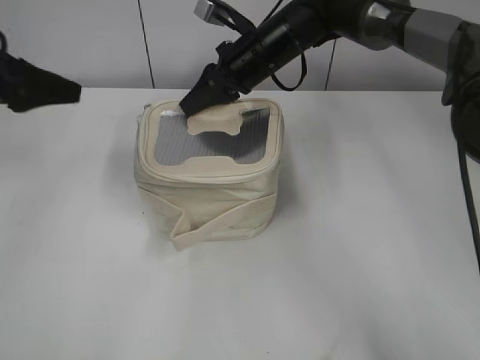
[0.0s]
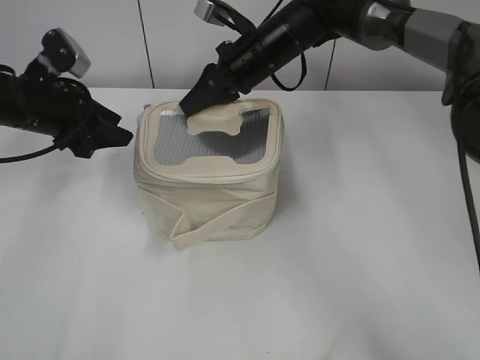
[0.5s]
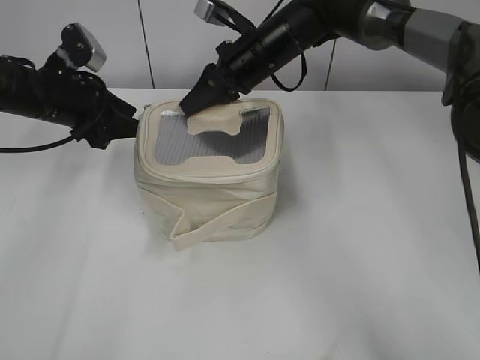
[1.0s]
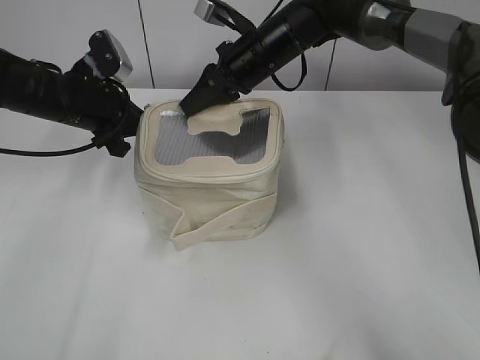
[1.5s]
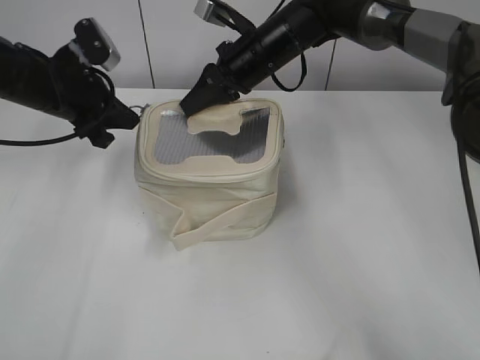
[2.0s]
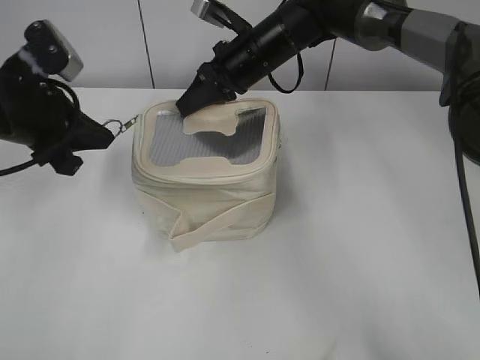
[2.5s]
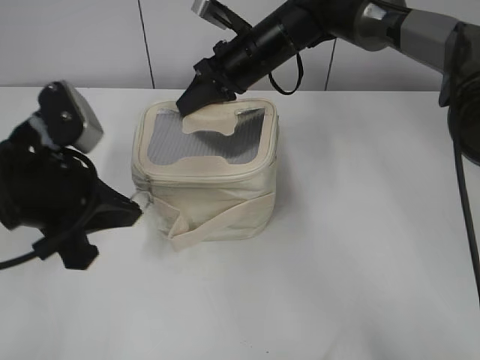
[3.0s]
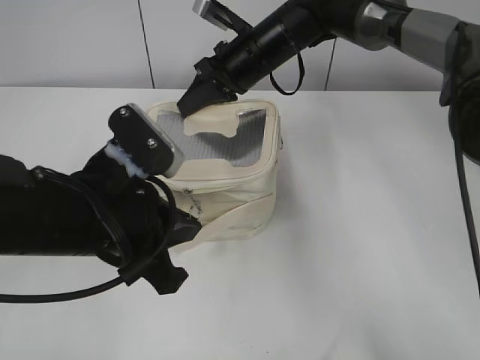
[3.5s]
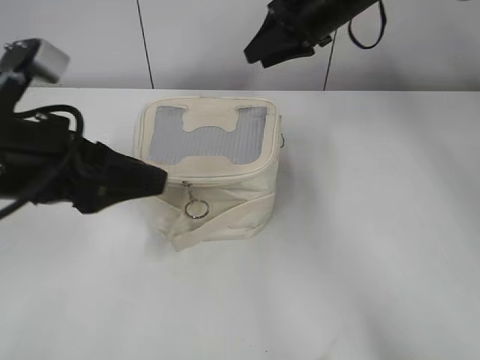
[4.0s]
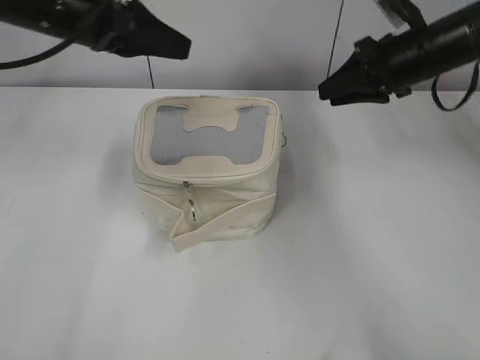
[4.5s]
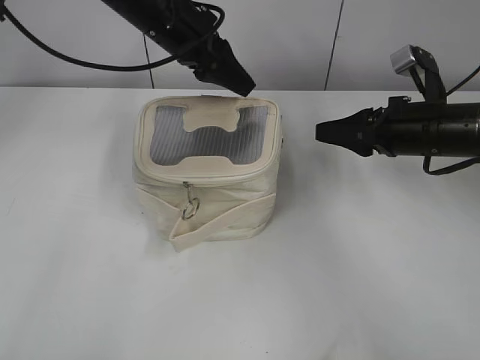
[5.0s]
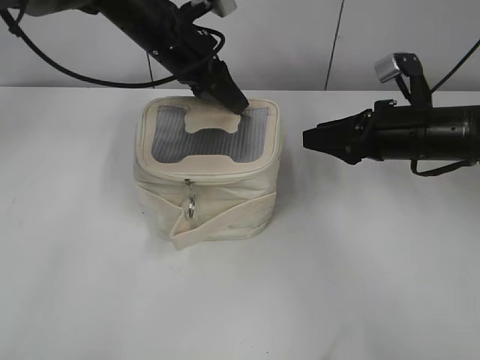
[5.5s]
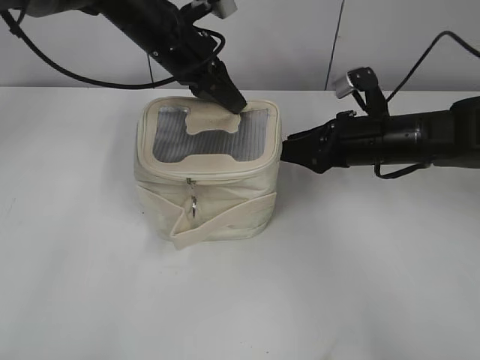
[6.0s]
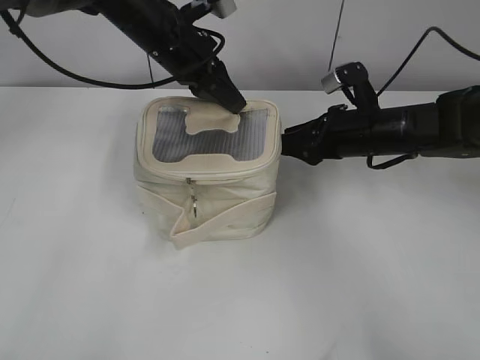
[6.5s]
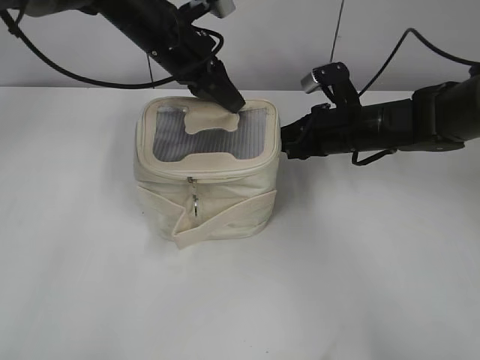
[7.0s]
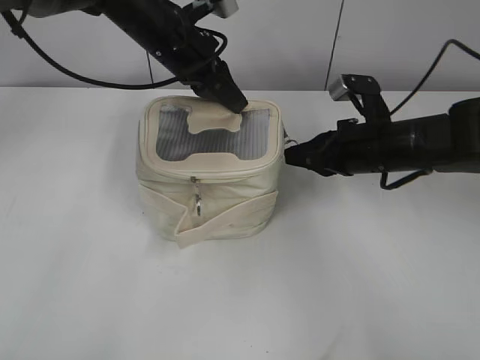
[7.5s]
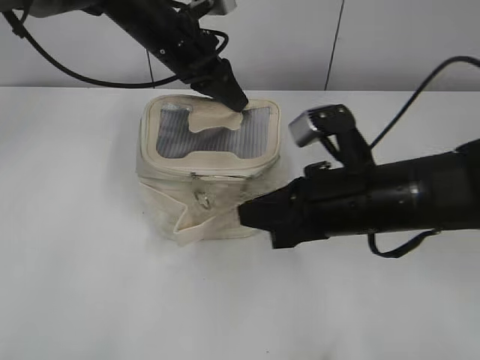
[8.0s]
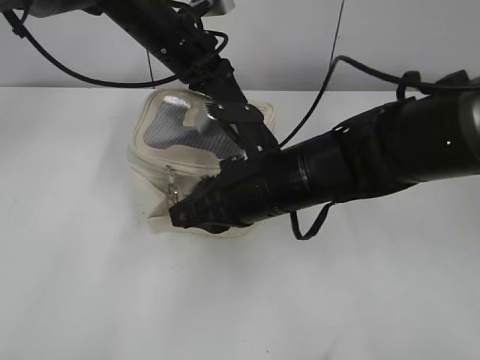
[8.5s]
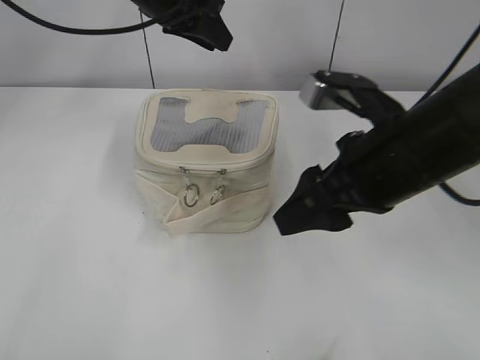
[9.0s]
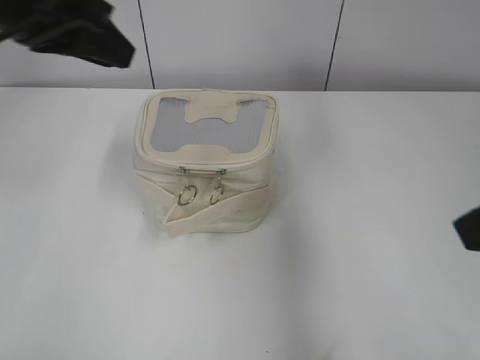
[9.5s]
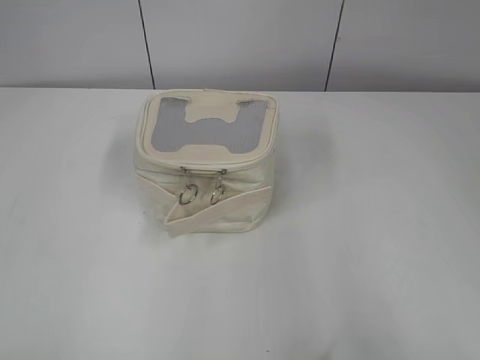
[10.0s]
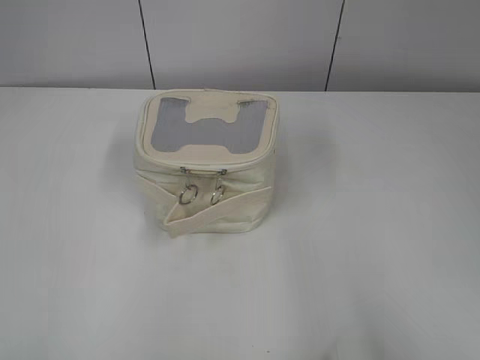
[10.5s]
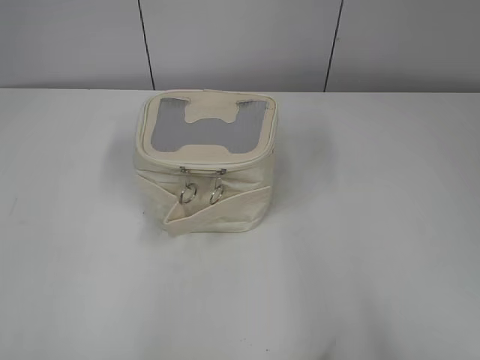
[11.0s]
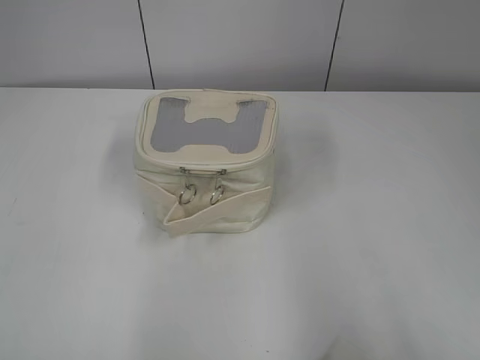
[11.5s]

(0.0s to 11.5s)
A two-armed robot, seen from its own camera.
Step, 0.0s - 3.5s: Zip up the bag with your left hand.
Step, 4.0s - 8.5s: Zip up the bag with your right hand.
0.0s - 2.0s: The left gripper moves to the right and downward, approximately 10 cm, and closes.
2.0s - 4.0s: The right gripper heads to the right and upward, covering some 10 cm, and opens its fingers. Meanwhile the left gripper moves backward, approximately 20 cm, and opens.
4.0s - 6.0s: The left gripper heads forward, covering approximately 25 cm, and closes its fingers. The right gripper is displaced backward, downward and to the right by about 20 cm.
6.0s - 7.5s: The right gripper closes up.
7.5s - 9.5s: The right gripper shifts some 30 cm upward and backward, and opens, while the left gripper travels backward, upward and to the left by approximately 20 cm, and opens its fingers.
9.5s - 11.5s: The right gripper is displaced backward and to the right by some 20 cm; the left gripper is displaced backward and to the left by approximately 35 cm.

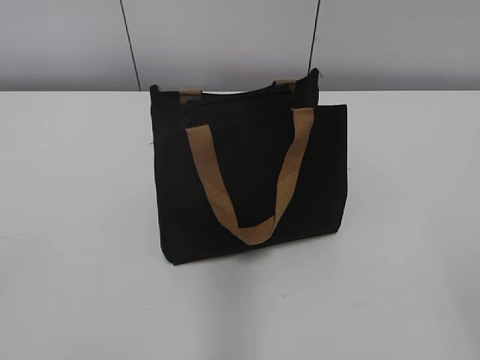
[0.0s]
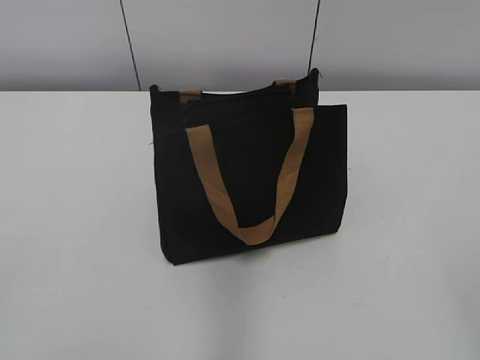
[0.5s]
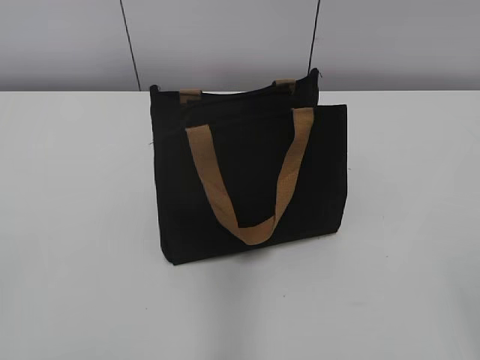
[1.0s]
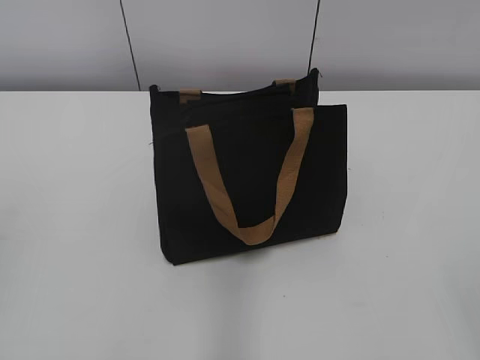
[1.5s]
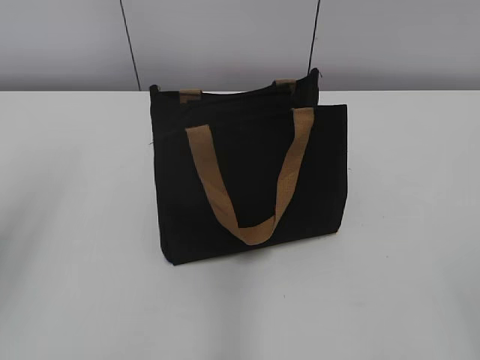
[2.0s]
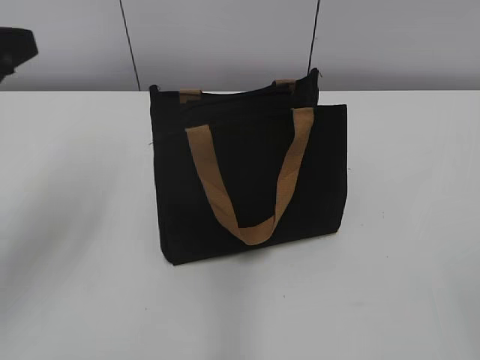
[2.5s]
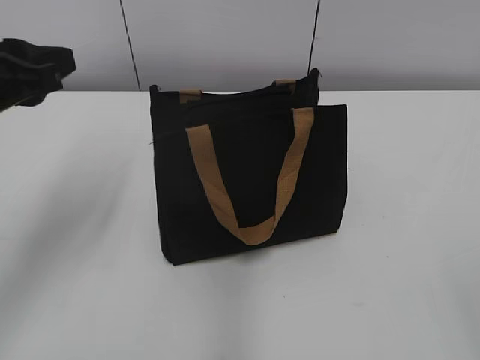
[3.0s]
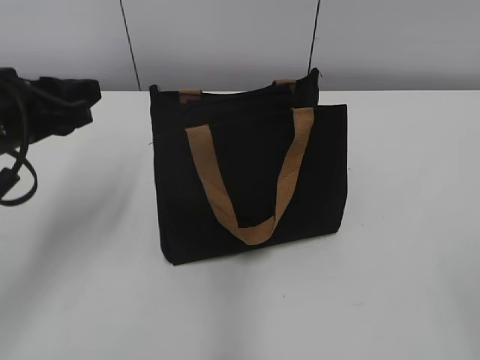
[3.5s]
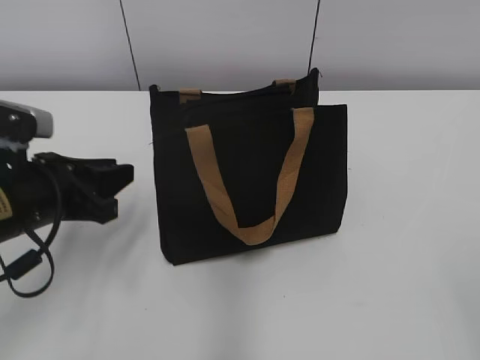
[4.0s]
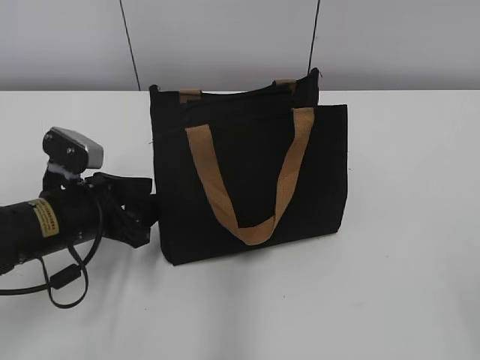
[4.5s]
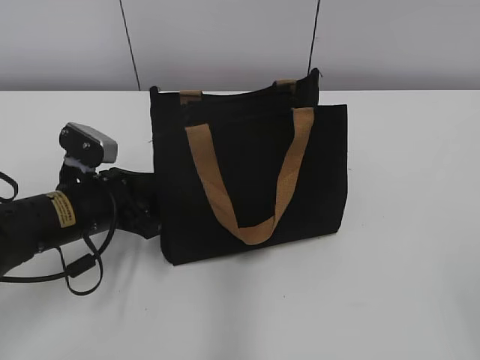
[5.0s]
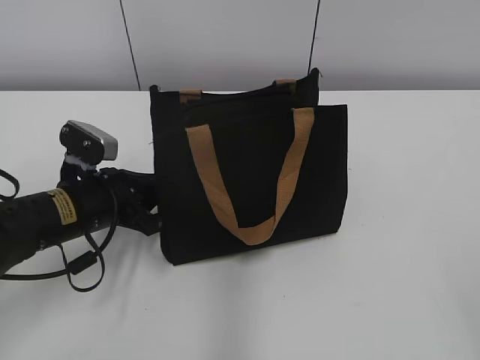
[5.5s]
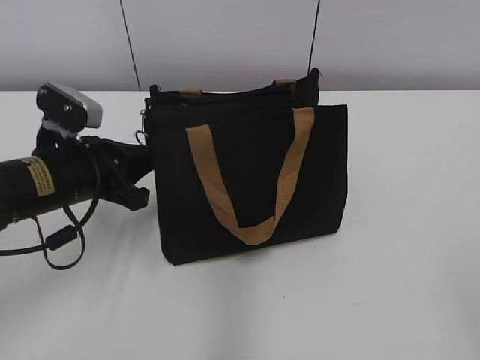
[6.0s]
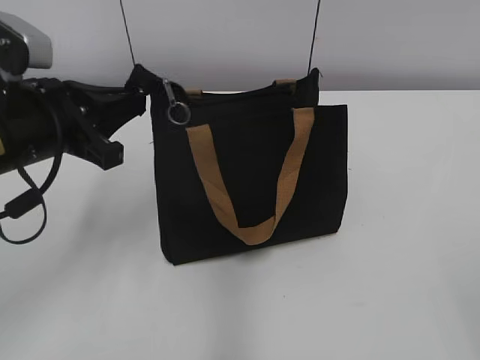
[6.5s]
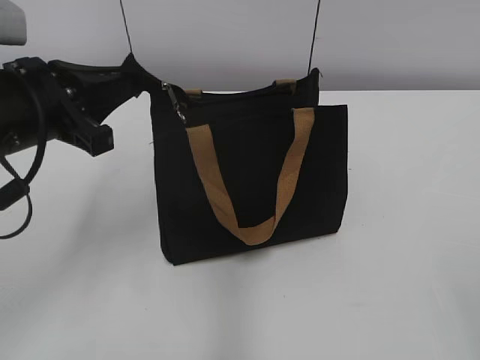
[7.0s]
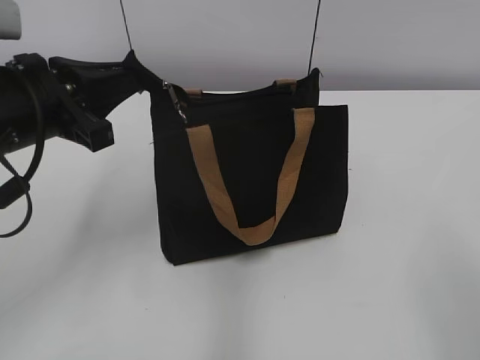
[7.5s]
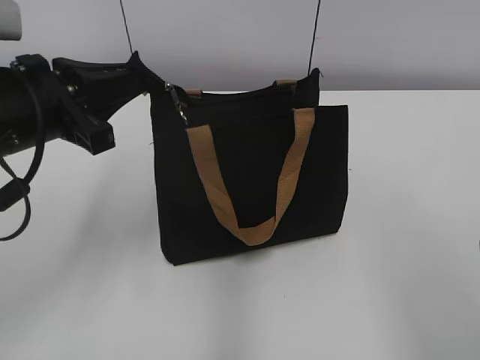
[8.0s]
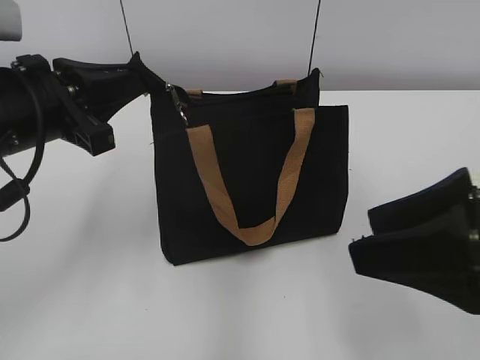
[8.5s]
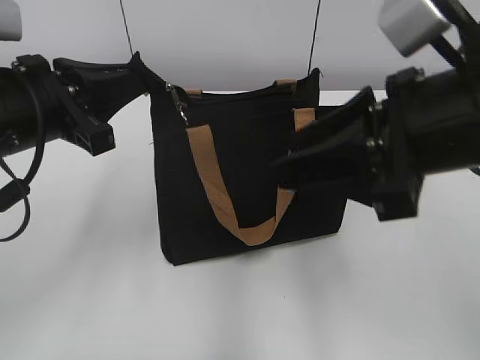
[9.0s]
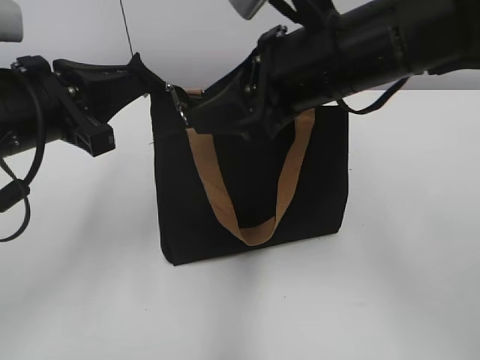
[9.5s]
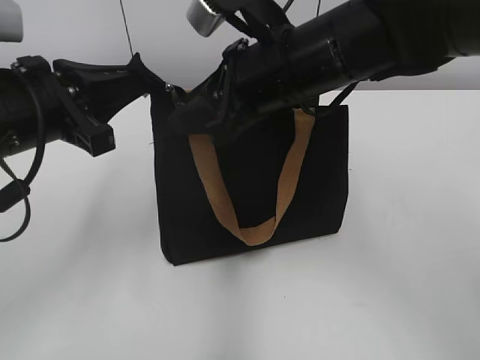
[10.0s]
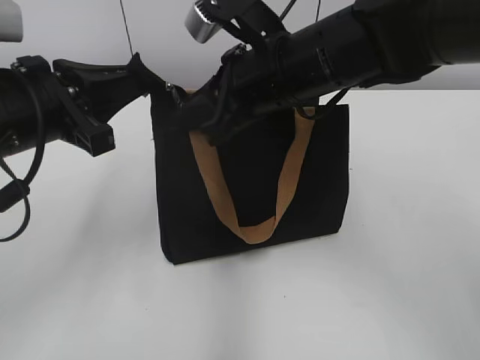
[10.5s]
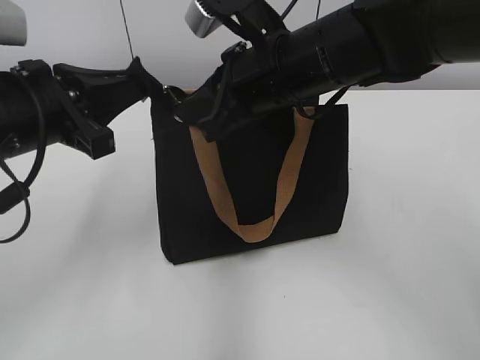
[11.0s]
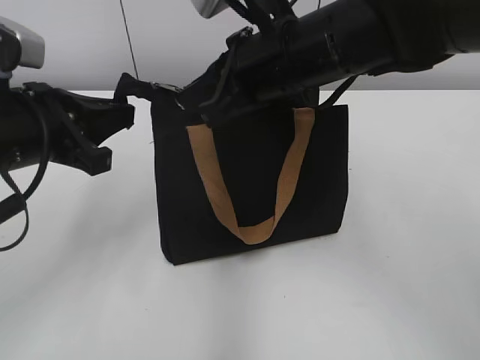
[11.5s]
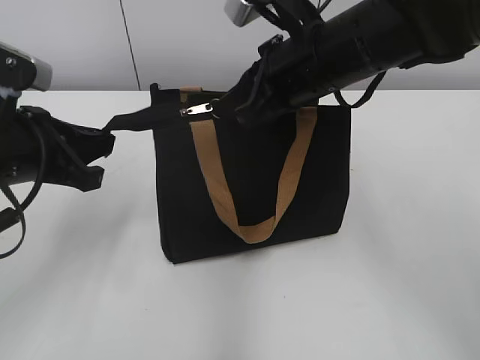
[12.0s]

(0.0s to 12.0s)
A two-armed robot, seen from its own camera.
2.0s - 4.0s: The left gripper travels downward, forward and to the right by about 20 cm.
4.0s - 6.0s: The left gripper moves about 5 cm, and closes up.
6.0s - 8.0s: The right gripper heads forward, covering roughly 10 cm. The left gripper travels upward by roughly 10 cm.
8.0s - 10.0s: The right gripper travels forward and to the left by roughly 30 cm.
10.0s - 12.0s: The right gripper closes.

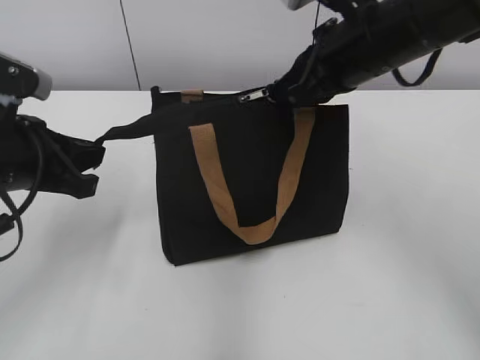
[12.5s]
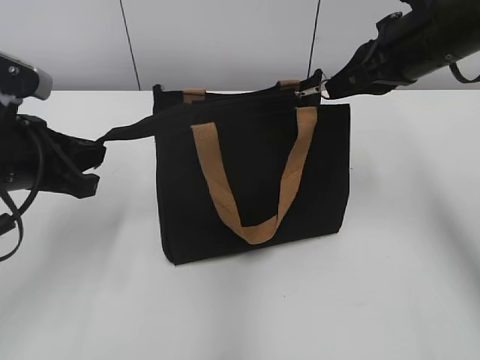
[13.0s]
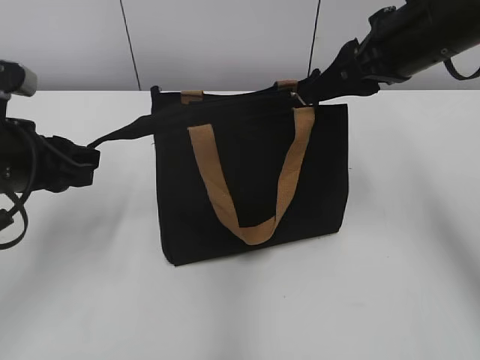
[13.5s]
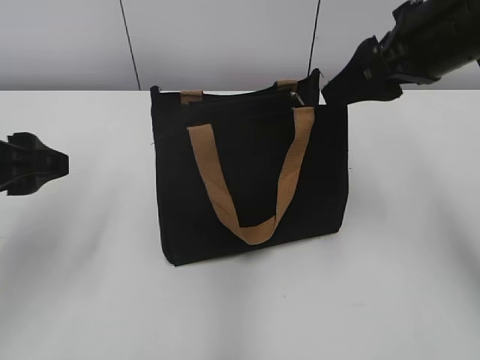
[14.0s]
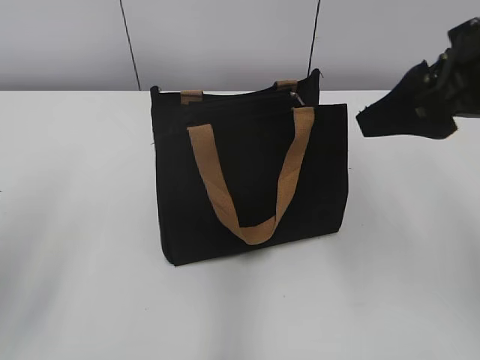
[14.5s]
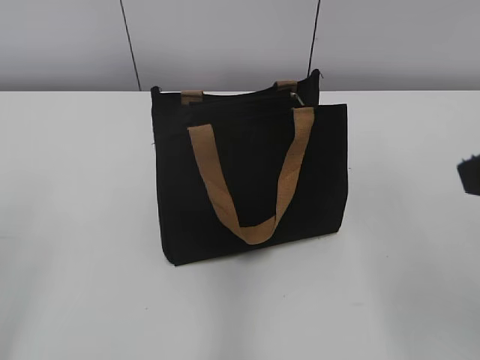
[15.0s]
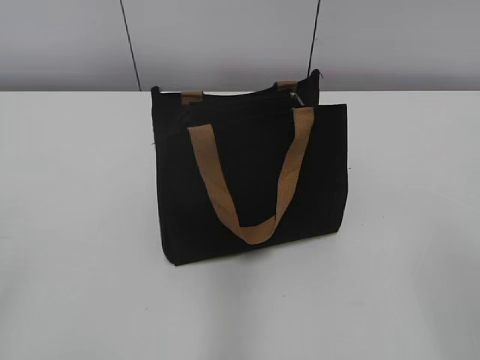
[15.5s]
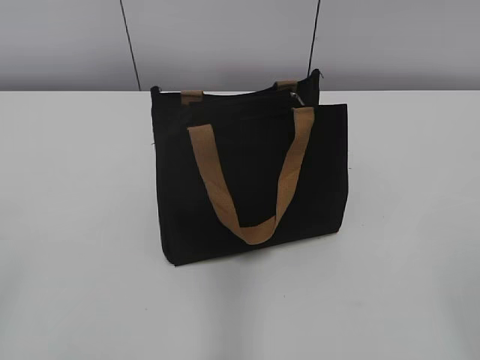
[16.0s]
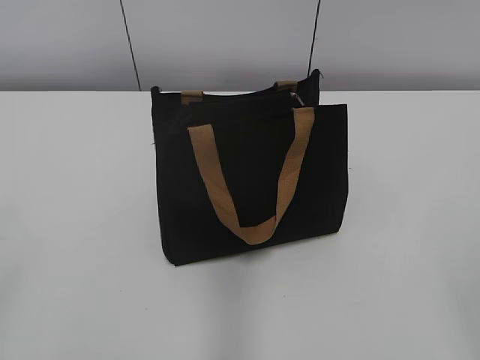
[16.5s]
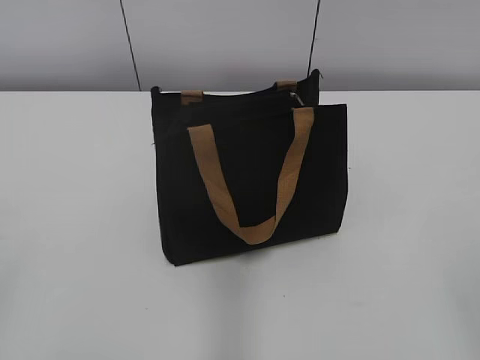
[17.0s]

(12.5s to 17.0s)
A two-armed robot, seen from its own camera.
12.5s - 14.5s: The left gripper moves backward and upward, about 10 cm, and opens its fingers. The right gripper heads backward and to the right, covering roughly 10 cm, and opens.
14.5s - 17.0s: The right gripper goes about 25 cm backward.
